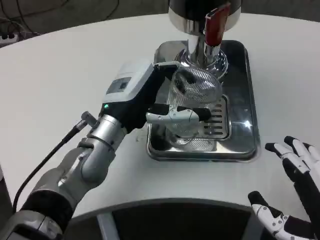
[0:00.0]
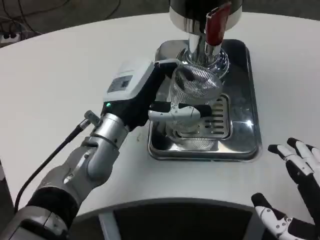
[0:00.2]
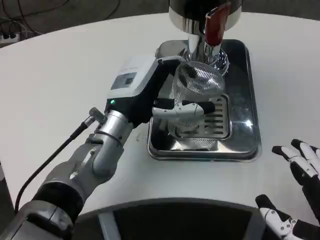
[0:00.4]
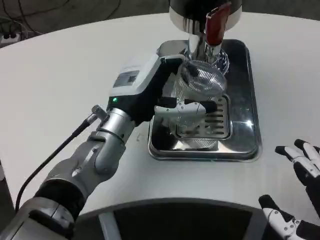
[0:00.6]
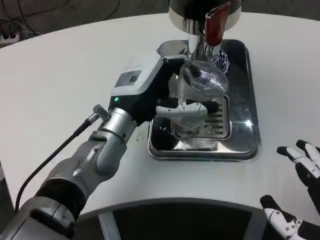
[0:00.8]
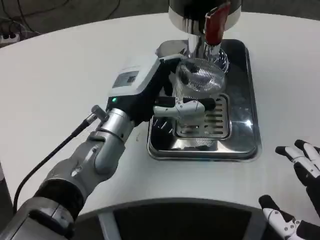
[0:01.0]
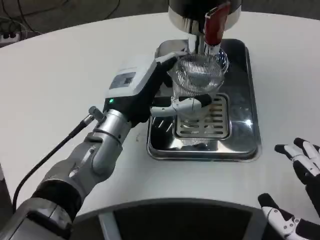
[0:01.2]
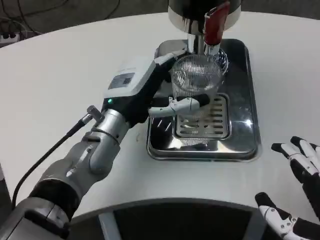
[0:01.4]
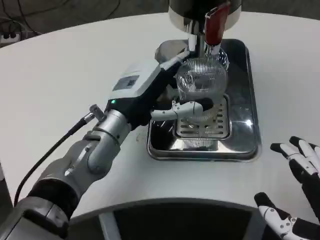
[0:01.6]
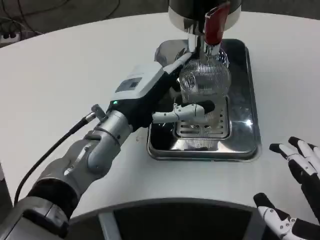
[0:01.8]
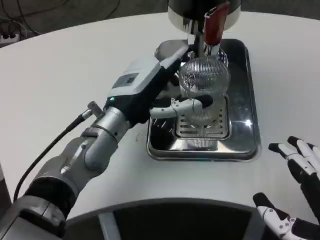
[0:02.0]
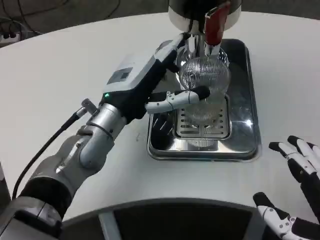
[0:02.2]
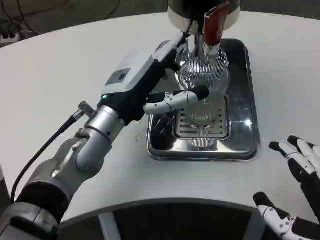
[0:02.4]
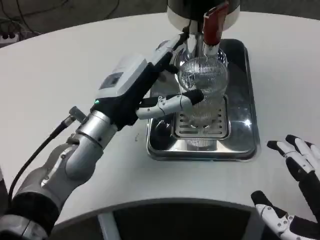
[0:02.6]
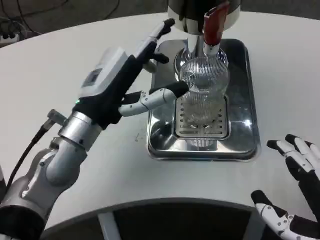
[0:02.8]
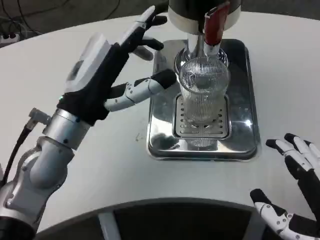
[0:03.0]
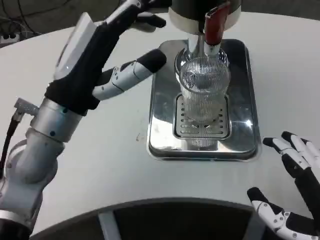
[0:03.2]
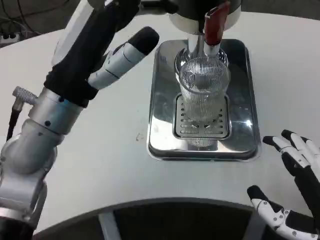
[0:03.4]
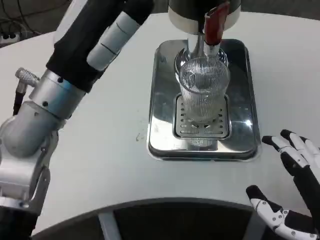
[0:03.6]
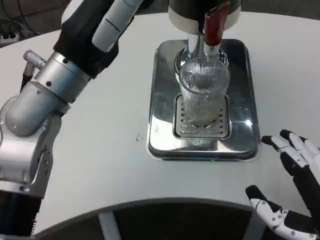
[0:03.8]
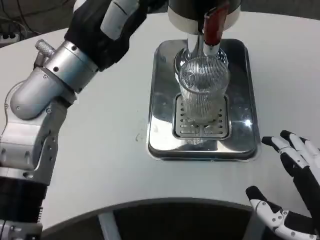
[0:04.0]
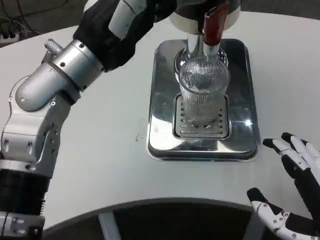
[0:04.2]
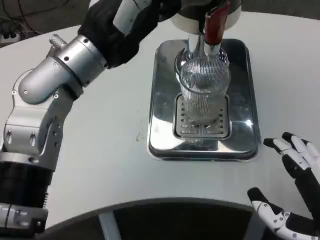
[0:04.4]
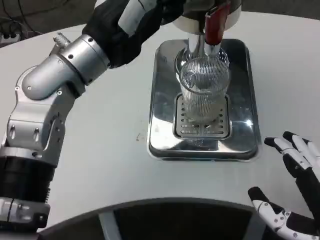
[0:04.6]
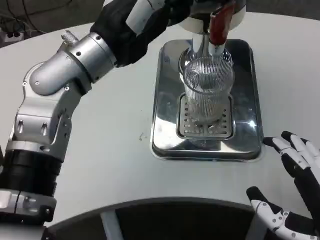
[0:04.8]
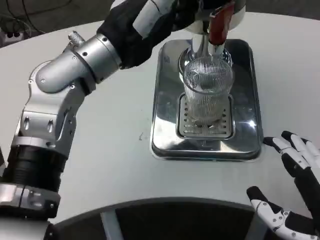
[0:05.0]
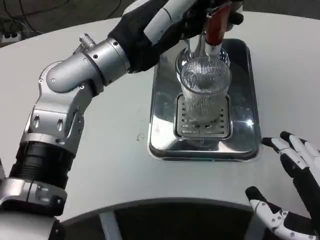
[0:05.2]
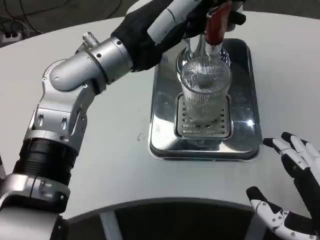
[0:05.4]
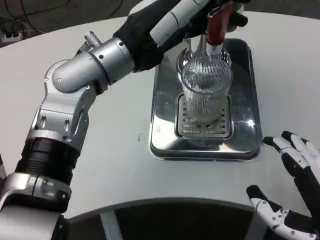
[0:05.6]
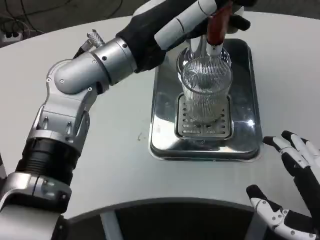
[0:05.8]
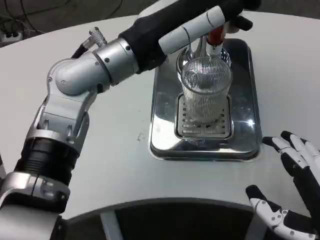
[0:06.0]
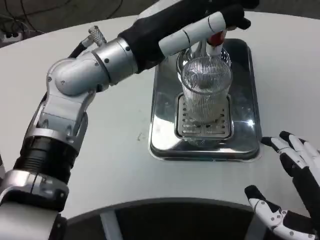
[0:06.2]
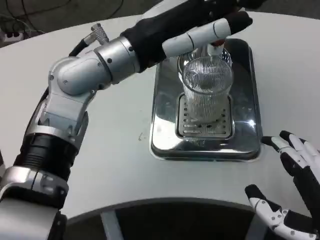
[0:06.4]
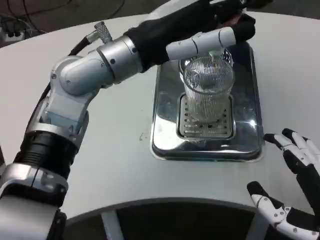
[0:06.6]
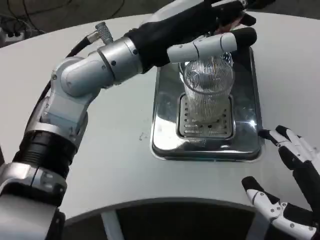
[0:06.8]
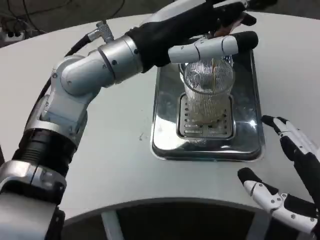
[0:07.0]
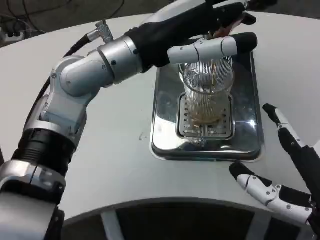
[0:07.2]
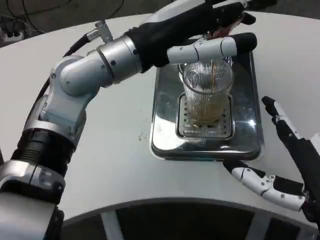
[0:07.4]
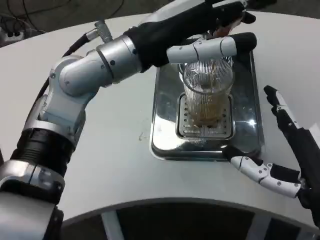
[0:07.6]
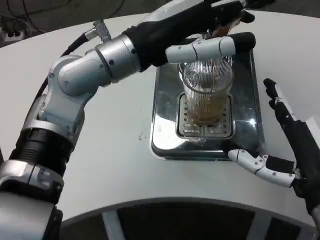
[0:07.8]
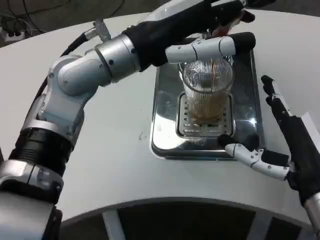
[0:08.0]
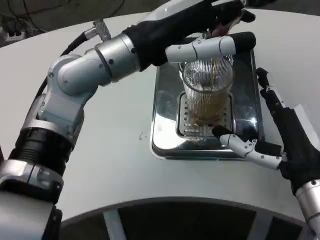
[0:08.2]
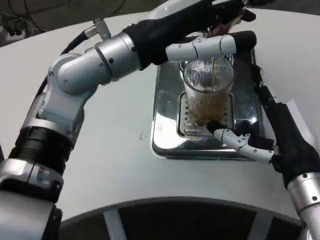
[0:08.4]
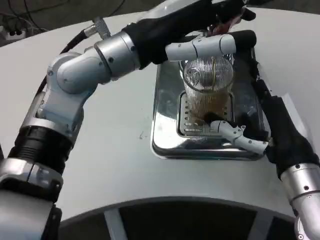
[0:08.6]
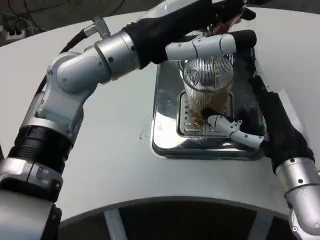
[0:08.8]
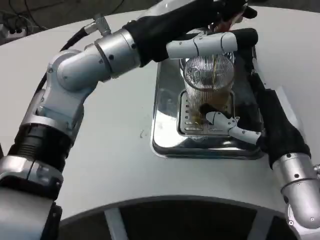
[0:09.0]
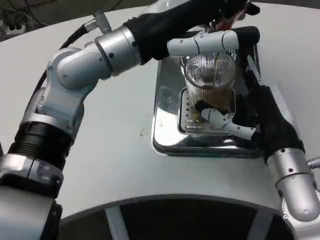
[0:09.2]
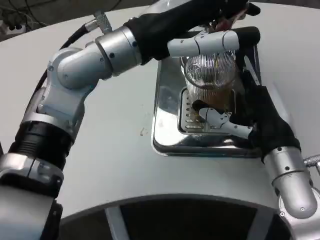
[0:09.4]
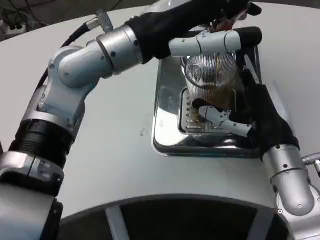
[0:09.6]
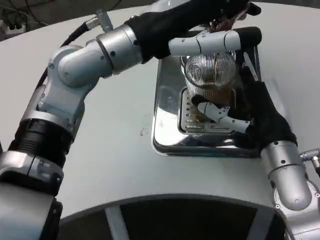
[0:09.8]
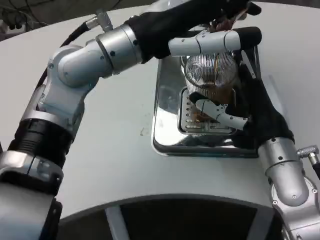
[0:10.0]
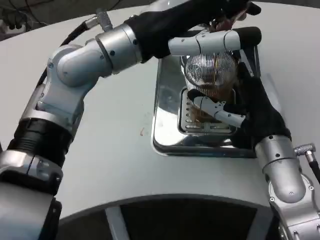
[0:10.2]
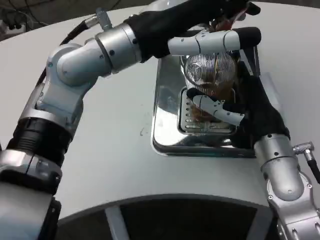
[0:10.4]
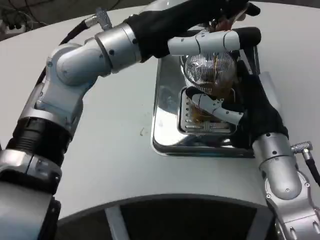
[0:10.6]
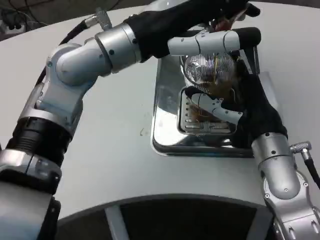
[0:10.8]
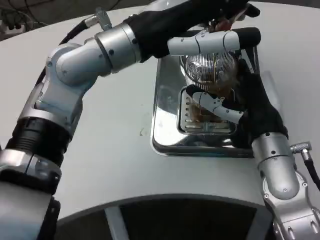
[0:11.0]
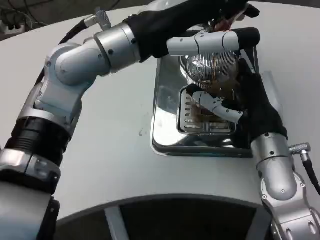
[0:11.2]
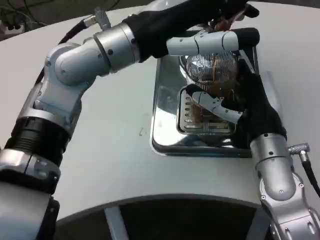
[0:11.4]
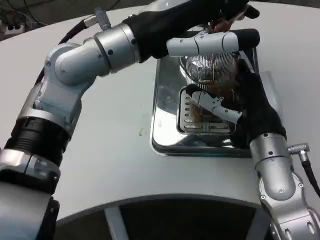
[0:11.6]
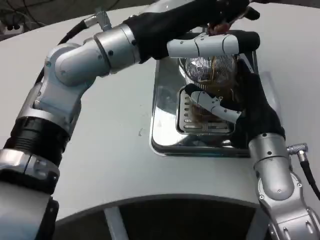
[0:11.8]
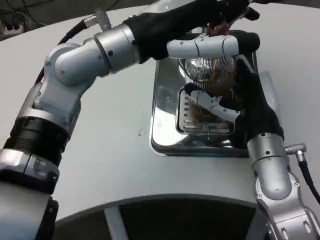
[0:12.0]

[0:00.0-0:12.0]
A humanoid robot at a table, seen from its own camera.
Task of the whole recording: Grasp the cup under the faucet to collect the drink, then remove the cup.
0:00.0 to 0:01.6: The hands stay close to where they were, moving slightly.
0:01.6 to 0:03.0: The left hand heads to the left, covering roughly 5 cm.
0:03.0 to 0:04.4: The left hand travels upward by about 10 cm.
0:06.0 to 0:07.6: The right hand moves forward, some 5 cm.
0:07.6 to 0:09.0: The right hand heads forward, covering roughly 10 cm.
0:10.4 to 0:12.0: The hands move only a little.

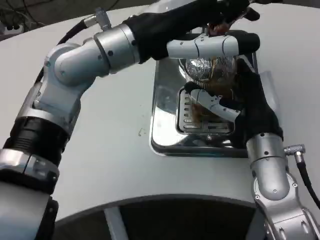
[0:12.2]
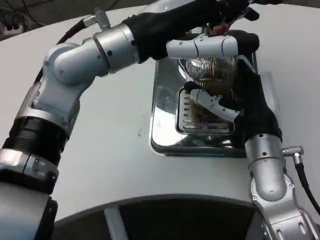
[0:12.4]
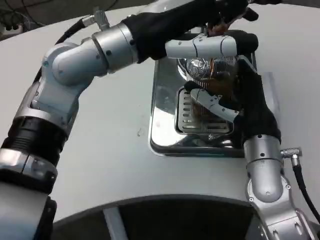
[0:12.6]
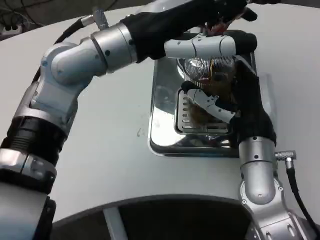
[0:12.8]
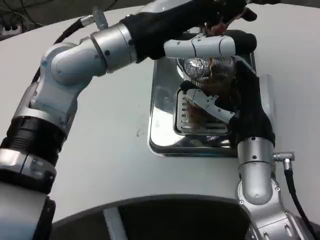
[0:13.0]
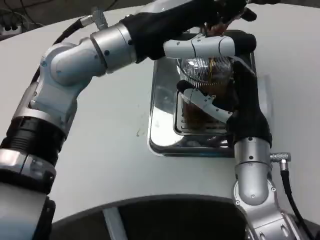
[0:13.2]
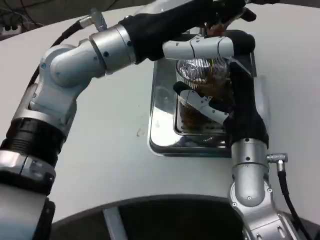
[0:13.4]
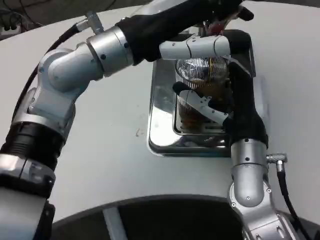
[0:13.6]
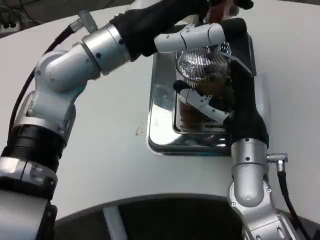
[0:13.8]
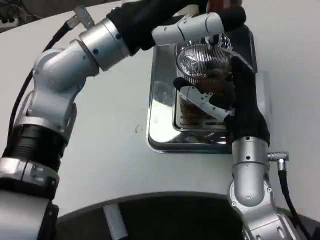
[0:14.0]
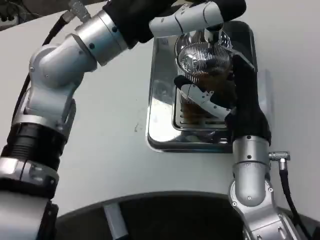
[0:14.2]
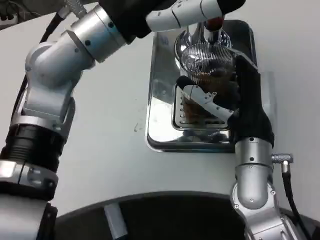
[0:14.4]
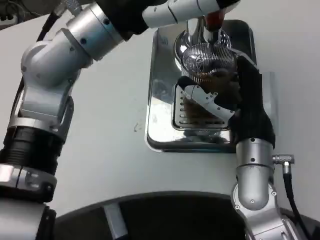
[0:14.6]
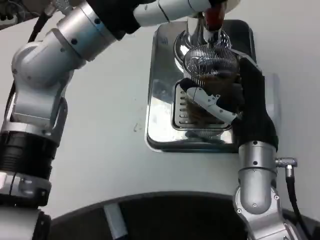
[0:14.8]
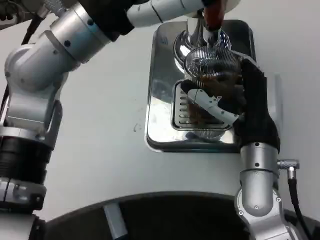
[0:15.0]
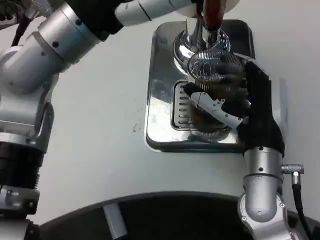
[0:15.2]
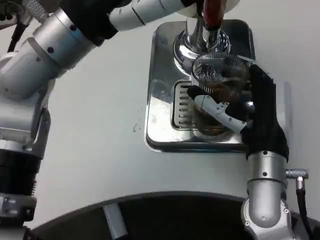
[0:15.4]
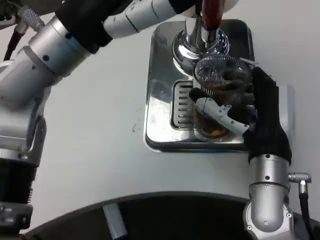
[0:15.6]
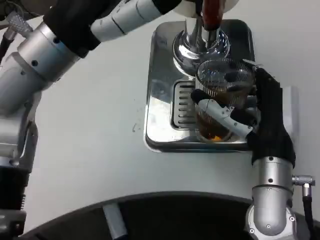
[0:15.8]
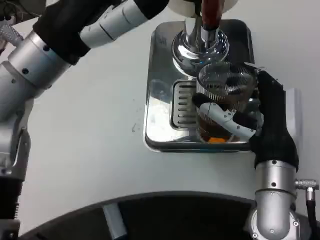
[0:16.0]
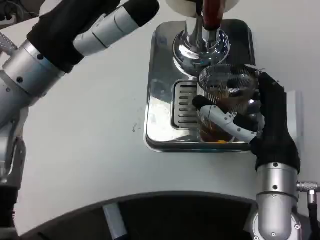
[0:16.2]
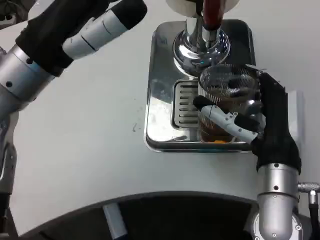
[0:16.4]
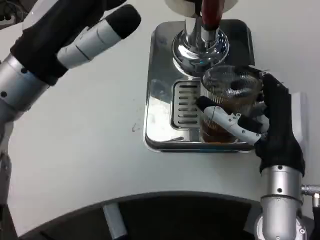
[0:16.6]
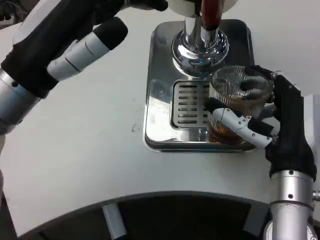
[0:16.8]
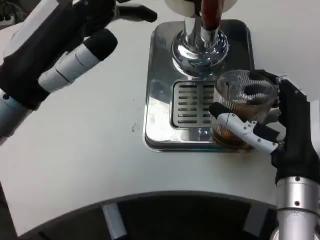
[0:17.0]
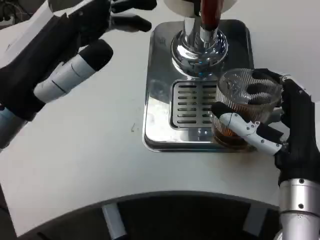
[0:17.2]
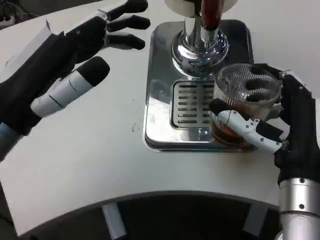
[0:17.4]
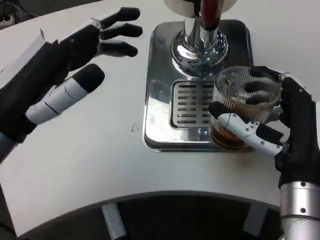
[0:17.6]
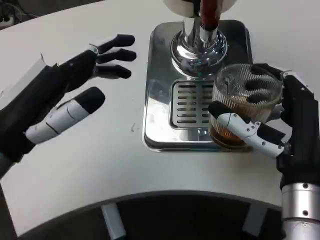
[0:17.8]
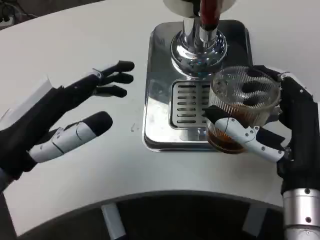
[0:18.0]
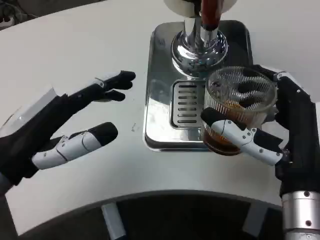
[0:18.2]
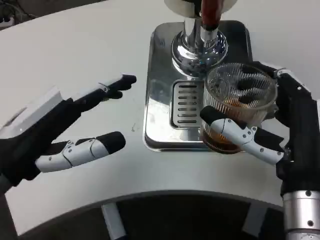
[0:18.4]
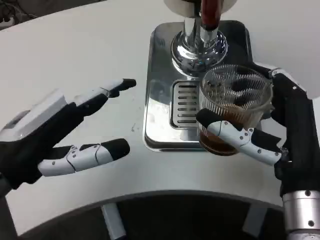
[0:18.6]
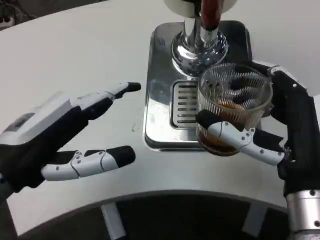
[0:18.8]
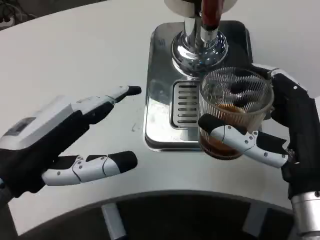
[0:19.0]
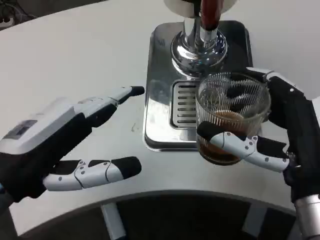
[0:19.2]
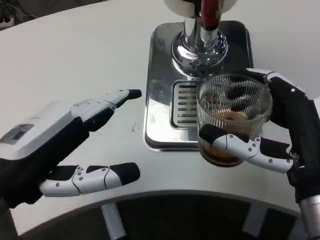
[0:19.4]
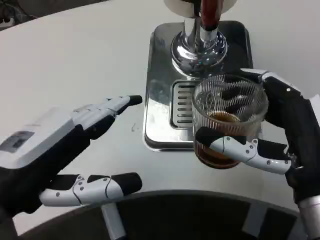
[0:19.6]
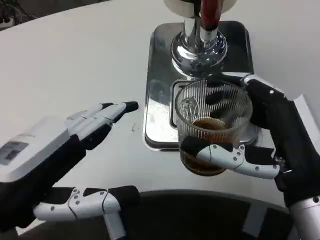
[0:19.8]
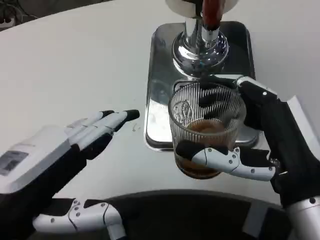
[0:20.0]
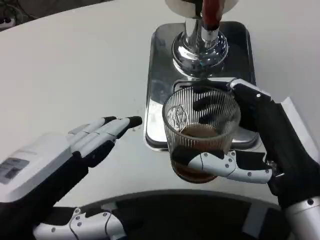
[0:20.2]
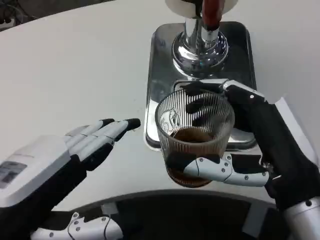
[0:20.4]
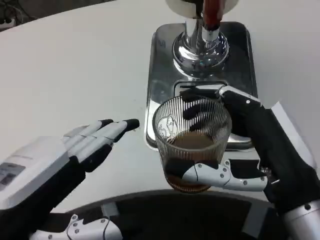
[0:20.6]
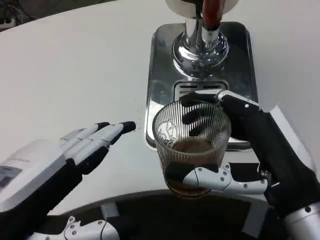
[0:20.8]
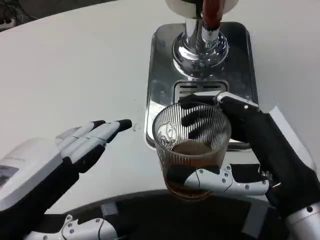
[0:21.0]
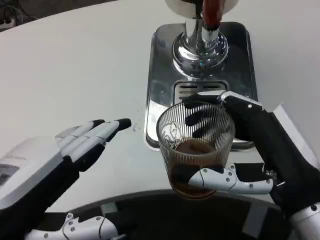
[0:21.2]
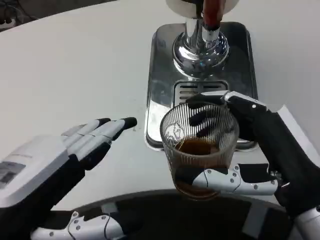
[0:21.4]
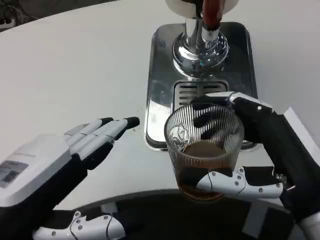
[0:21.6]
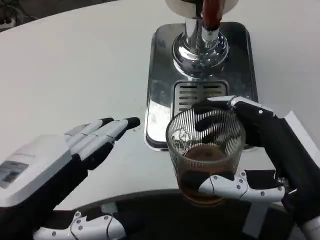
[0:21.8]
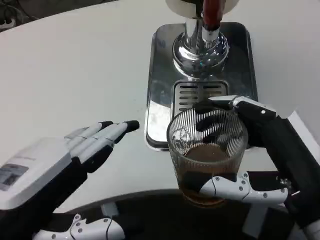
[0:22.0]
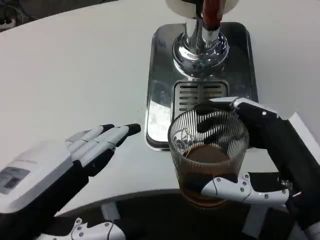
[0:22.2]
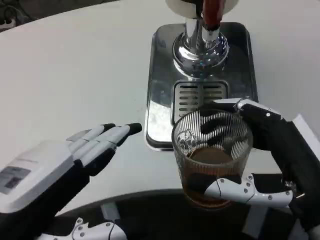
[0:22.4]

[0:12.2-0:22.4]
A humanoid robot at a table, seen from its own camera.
Task of the whole recording: Grasp the cup under the faucet to collect the drink, then remove the cup.
0:15.2 to 0:16.6: The left hand is displaced to the left by some 5 cm.
0:16.6 to 0:18.0: The right hand goes some 5 cm backward. Meanwhile the left hand travels downward and backward by some 10 cm.
0:19.4 to 0:21.0: The left hand heads backward, covering approximately 5 cm.
